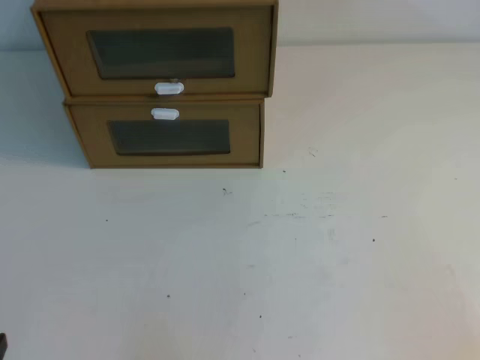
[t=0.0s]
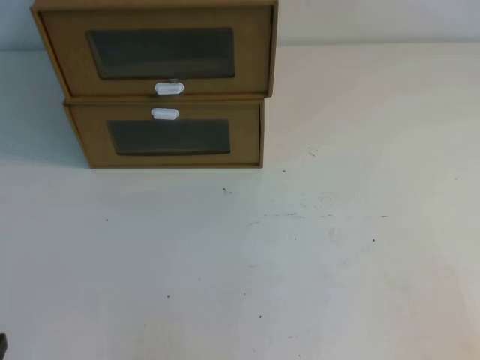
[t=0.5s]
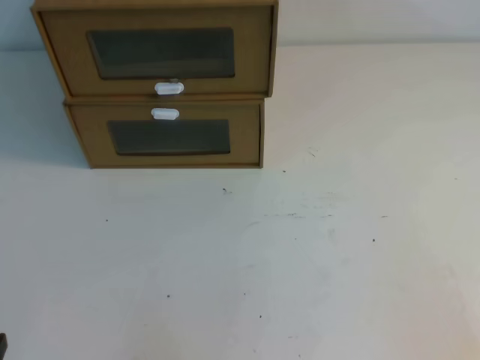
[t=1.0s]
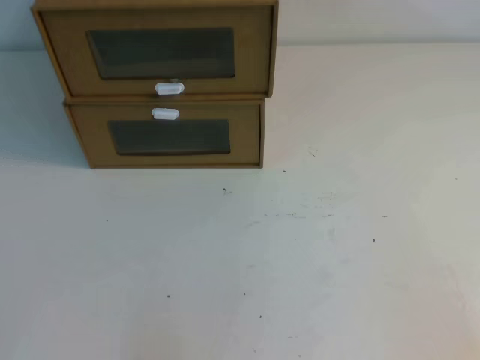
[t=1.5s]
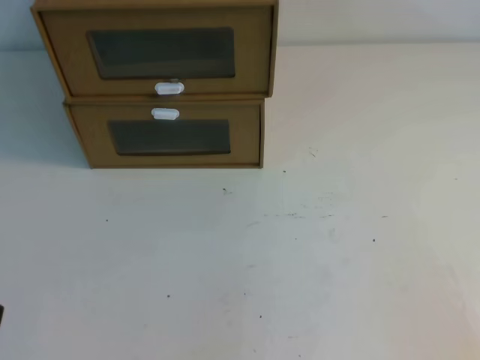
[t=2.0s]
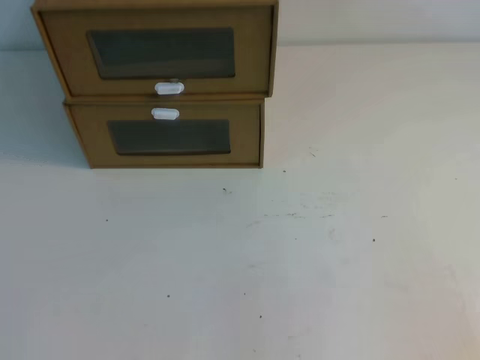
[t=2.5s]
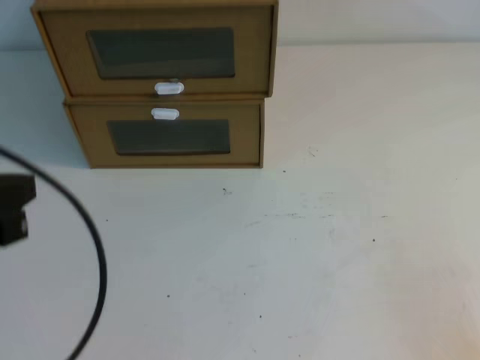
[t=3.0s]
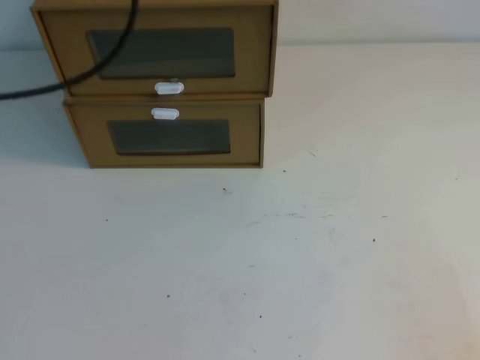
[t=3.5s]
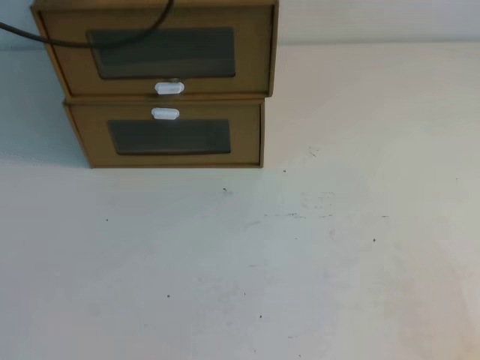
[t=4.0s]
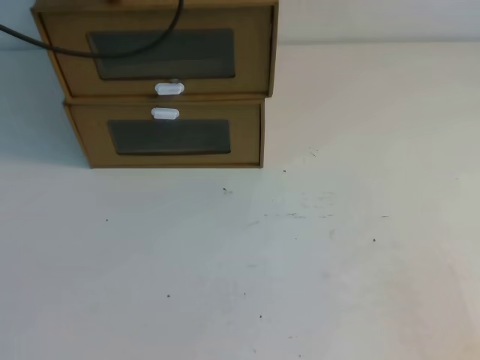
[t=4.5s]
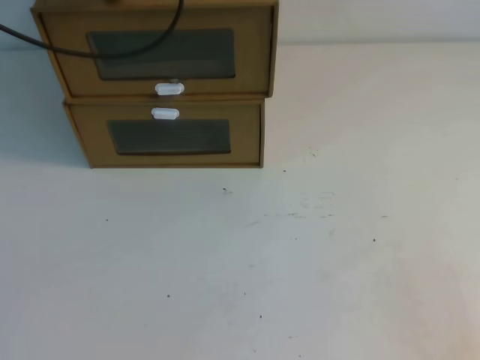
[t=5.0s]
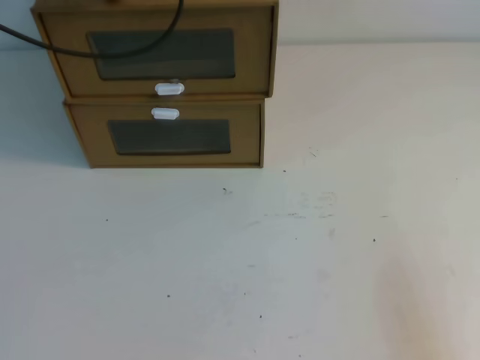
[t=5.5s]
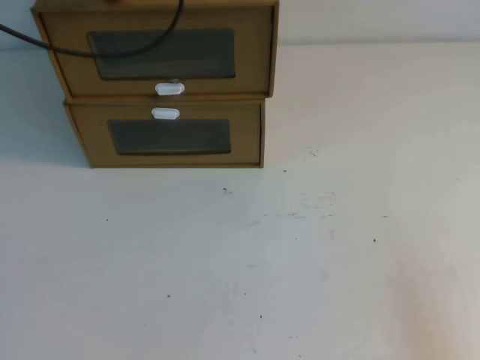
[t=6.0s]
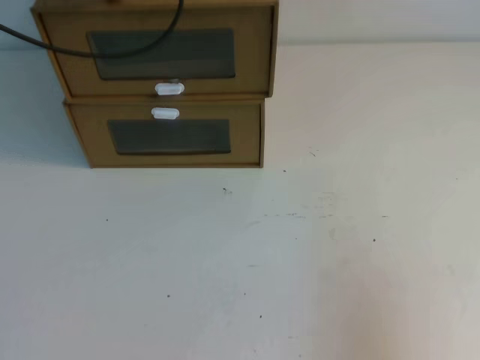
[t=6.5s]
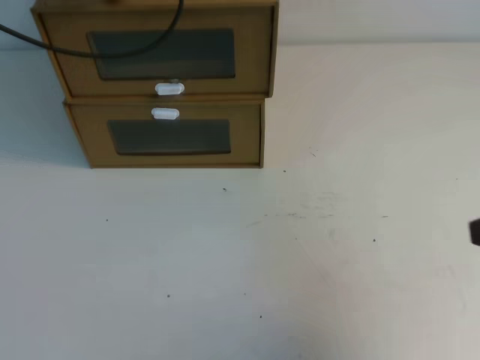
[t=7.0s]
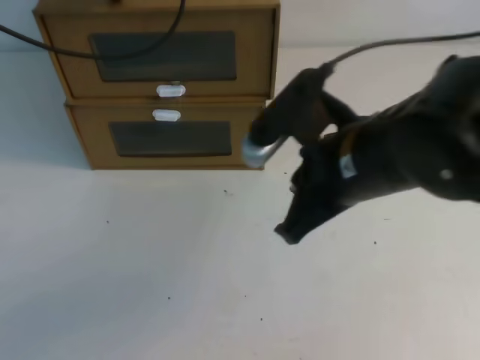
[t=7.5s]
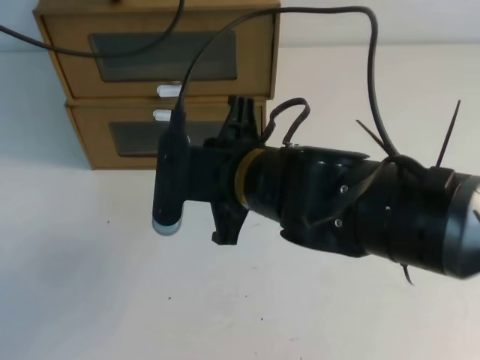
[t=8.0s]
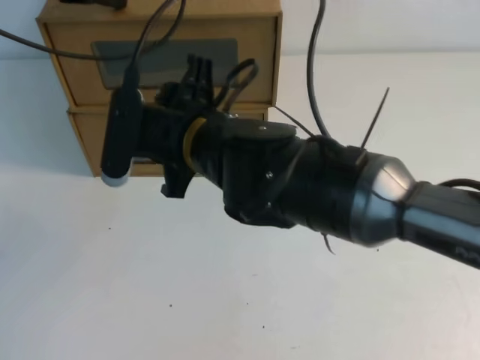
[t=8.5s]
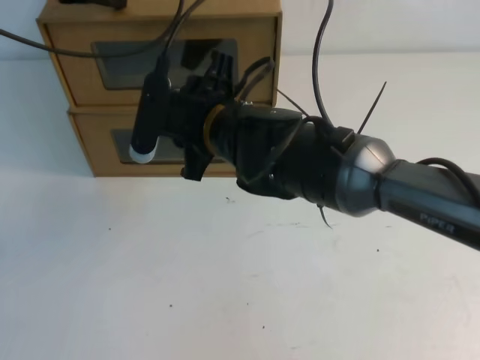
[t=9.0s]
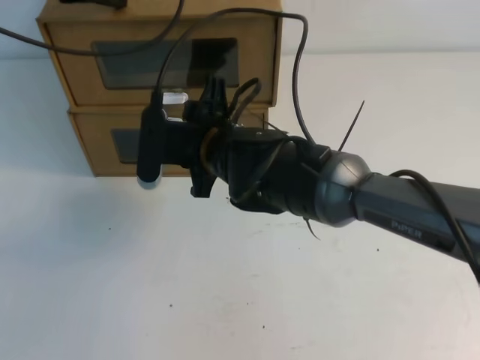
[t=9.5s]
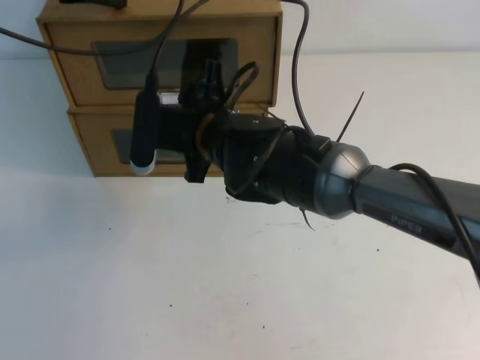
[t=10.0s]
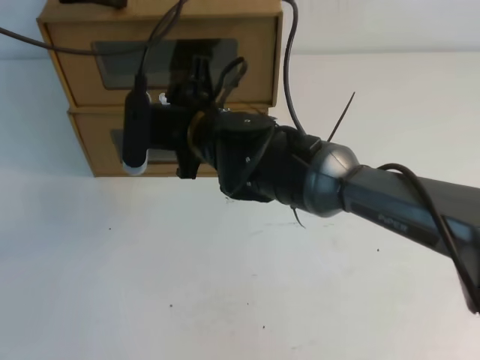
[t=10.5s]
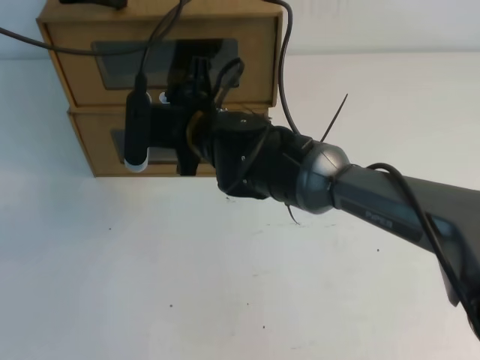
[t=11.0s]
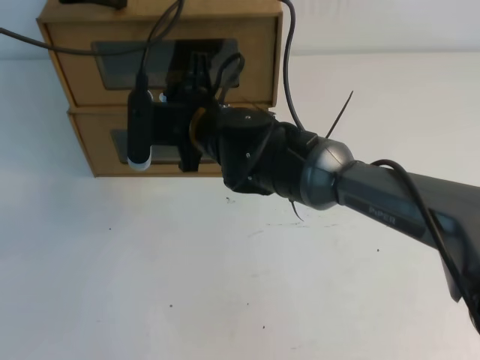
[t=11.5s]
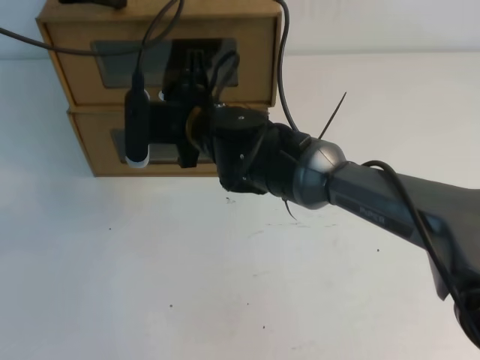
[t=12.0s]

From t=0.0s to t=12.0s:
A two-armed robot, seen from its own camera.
Task of the whole recording: open the shoebox on the table.
From t=6.0s to t=8.0s: The right gripper moves to the left and forward, about 35 cm.
From t=8.0s to t=10.0s: The right gripper is displaced forward by some 10 cm, and opens up.
From t=10.0s to t=12.0s: The right gripper closes.

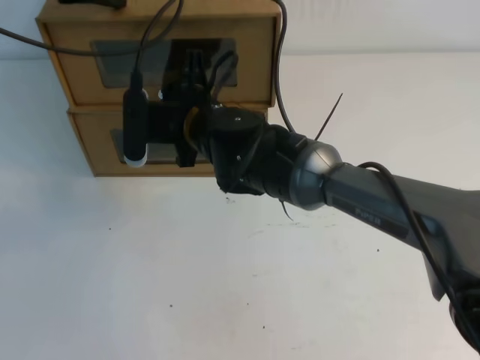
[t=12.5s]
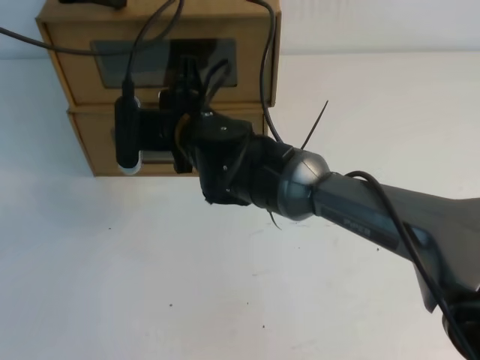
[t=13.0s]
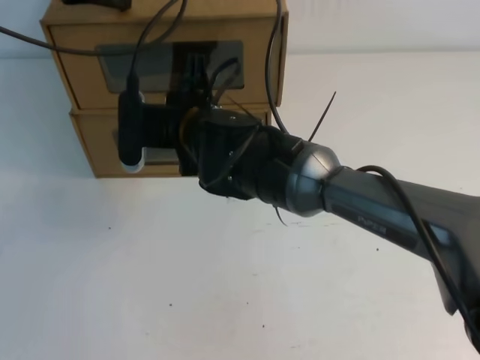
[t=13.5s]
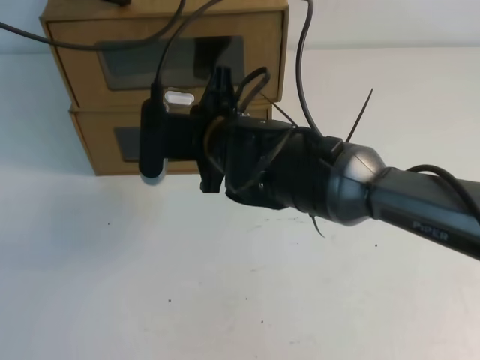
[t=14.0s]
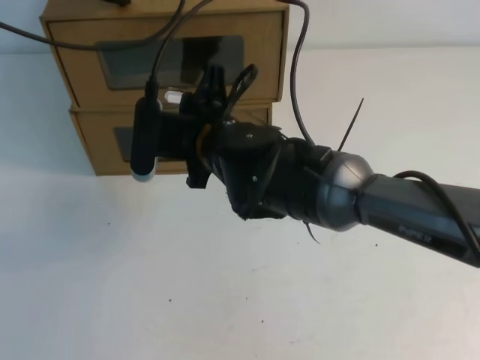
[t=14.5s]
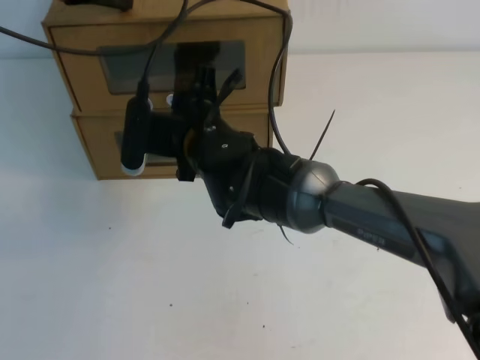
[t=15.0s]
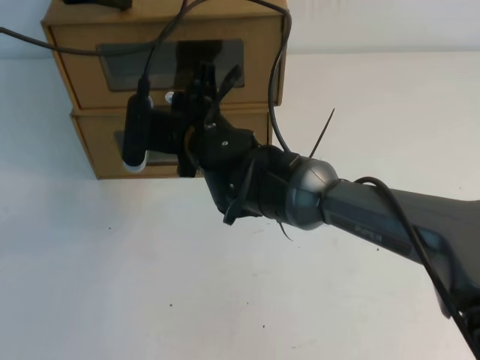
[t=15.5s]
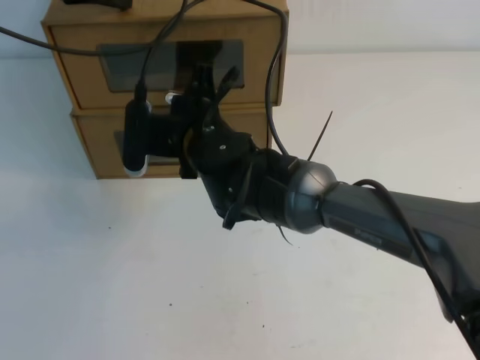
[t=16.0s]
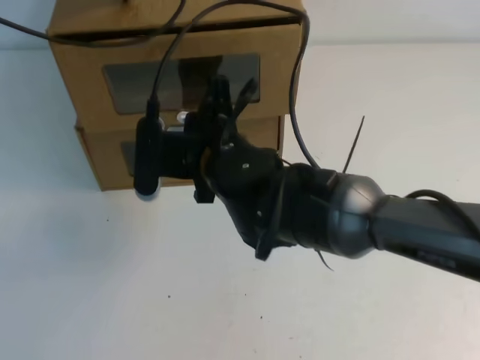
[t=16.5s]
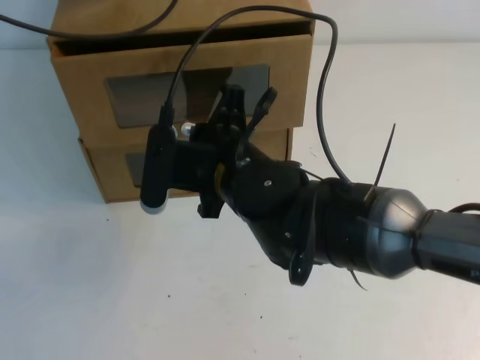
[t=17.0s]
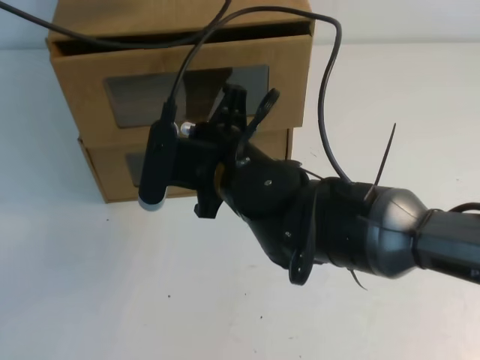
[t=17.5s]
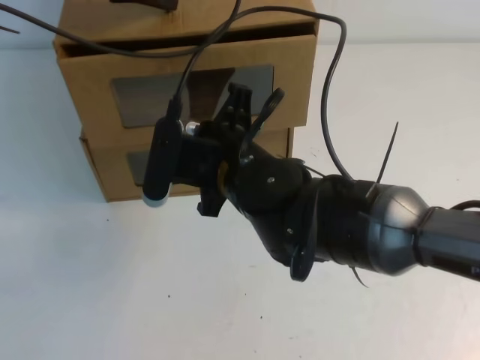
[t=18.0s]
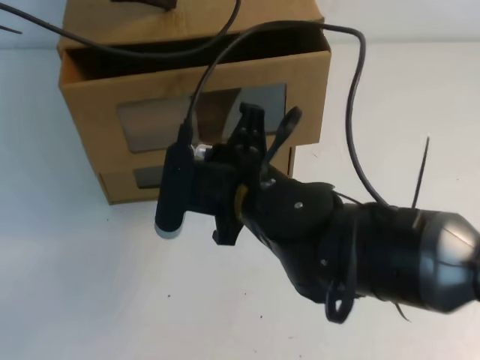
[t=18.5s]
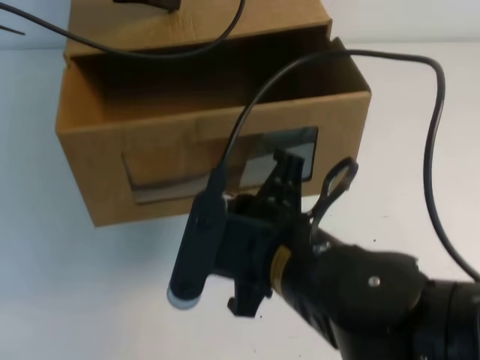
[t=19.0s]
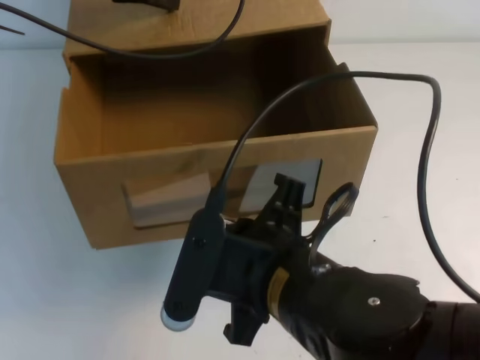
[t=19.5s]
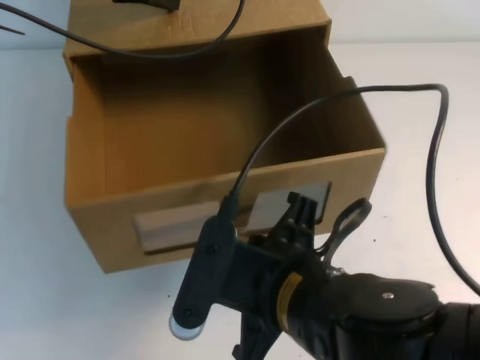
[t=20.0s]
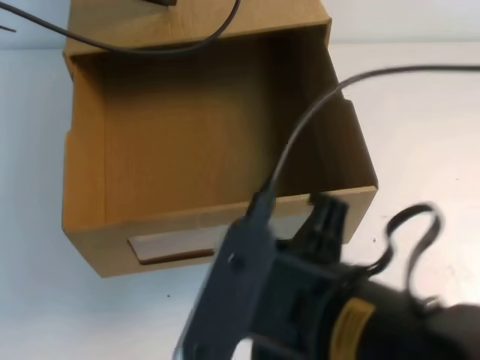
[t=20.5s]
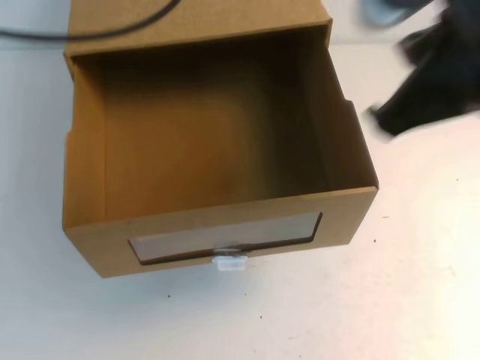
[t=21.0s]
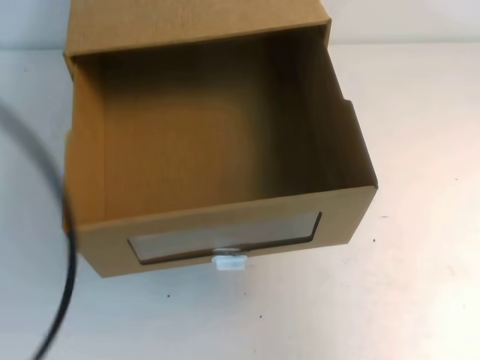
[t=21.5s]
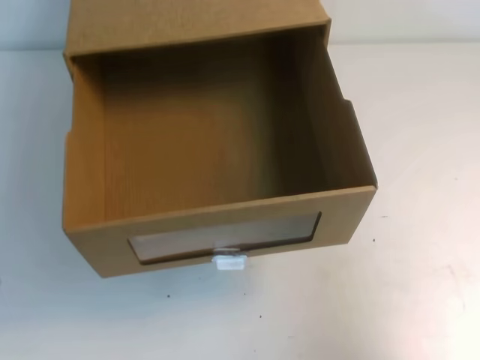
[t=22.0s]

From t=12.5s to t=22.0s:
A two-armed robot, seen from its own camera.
Task of the whole recording: open the shoebox on the table.
From t=12.5s to t=14.5s: The right gripper shifts by roughly 5 cm.
From t=14.5s to t=16.5s: The right gripper closes its fingers.
From t=16.5s to t=18.0s: The left gripper shifts by some 5 cm.
From t=18.0s to t=20.0s: The right gripper is displaced backward by some 15 cm.
From t=20.0s to t=22.0s: The right gripper heads to the right, covering approximately 25 cm, while the left gripper travels backward and downward by approximately 40 cm.

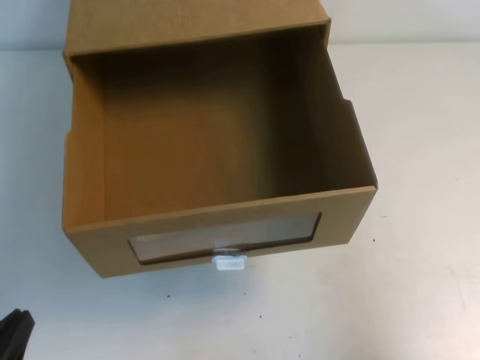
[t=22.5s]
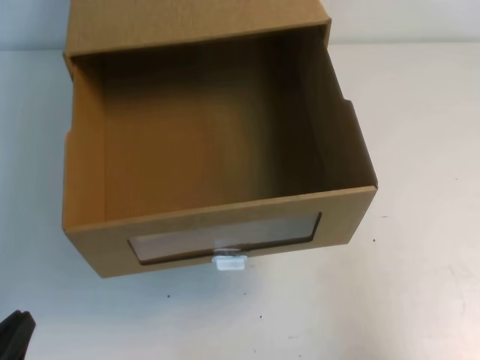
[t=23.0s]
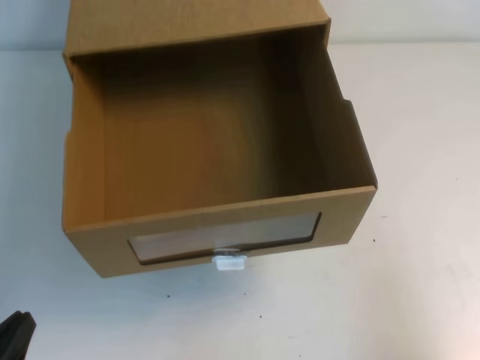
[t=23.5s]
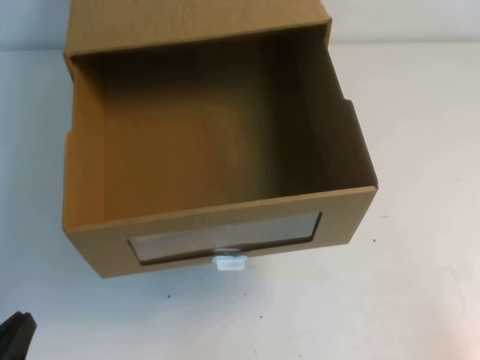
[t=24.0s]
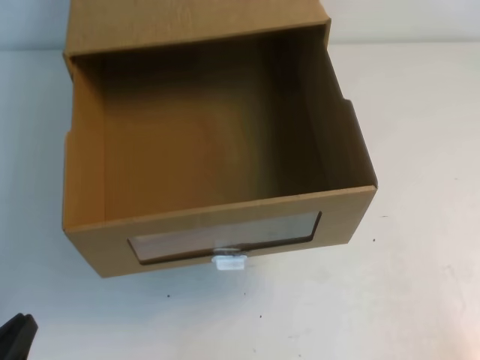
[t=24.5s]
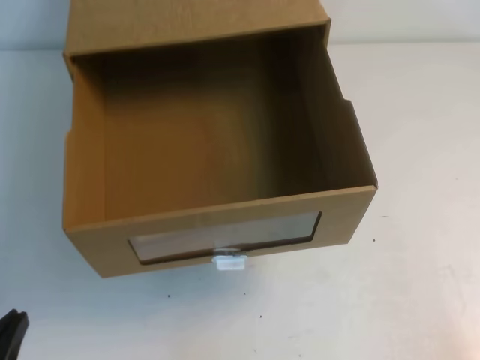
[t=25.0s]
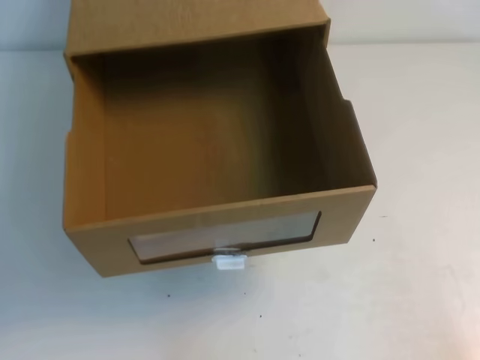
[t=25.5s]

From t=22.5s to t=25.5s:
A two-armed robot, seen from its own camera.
Task of the whole recording: open the shoebox on the table.
From t=22.5s to t=24.0s: The right gripper goes about 15 cm downward and backward.

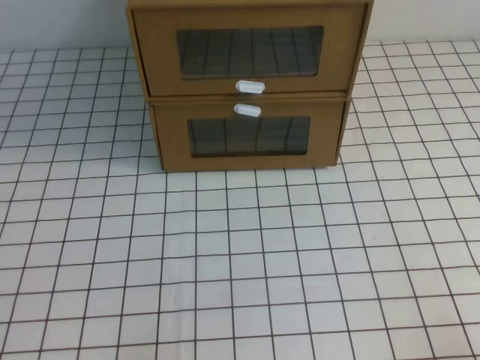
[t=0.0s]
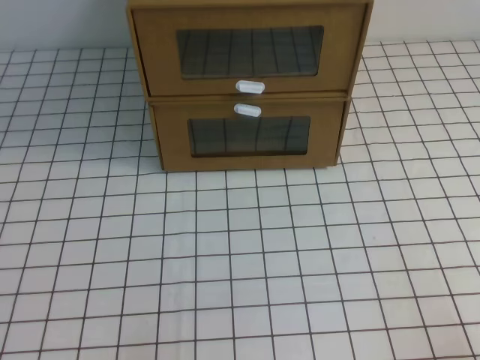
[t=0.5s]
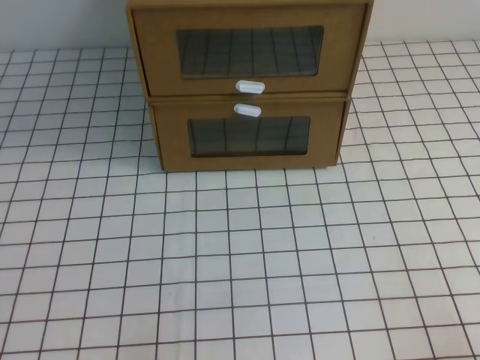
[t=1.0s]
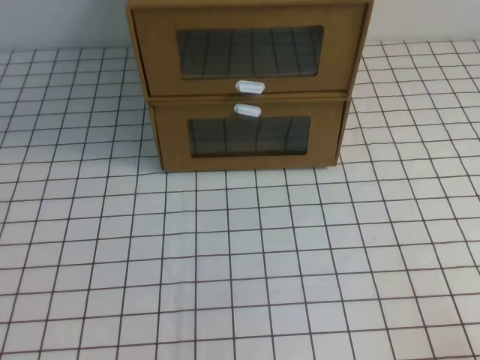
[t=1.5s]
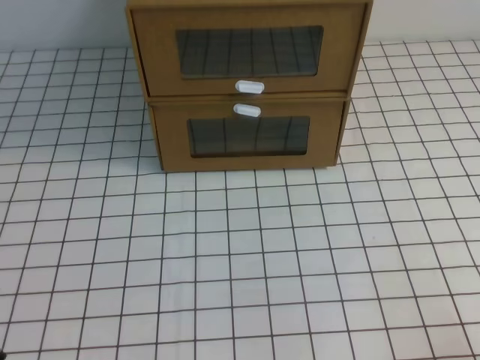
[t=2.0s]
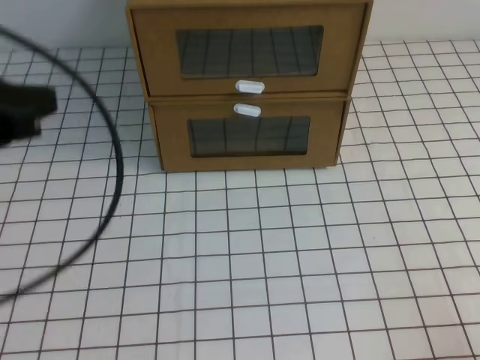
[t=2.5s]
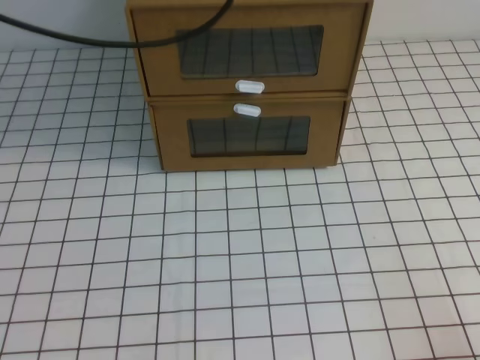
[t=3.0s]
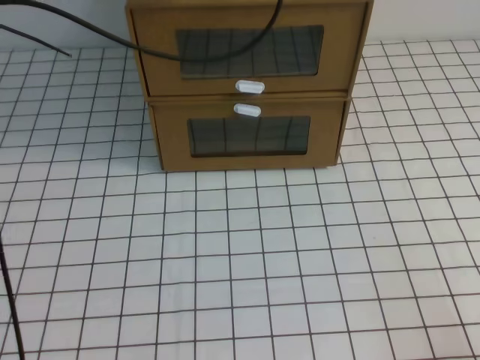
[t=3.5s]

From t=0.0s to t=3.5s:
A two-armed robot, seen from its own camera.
Task of the whole recording: open the shoebox on the white tablecloth.
From t=2.0s to t=3.5s: The left gripper heads forward, upward and to the right, covering some 40 cm.
